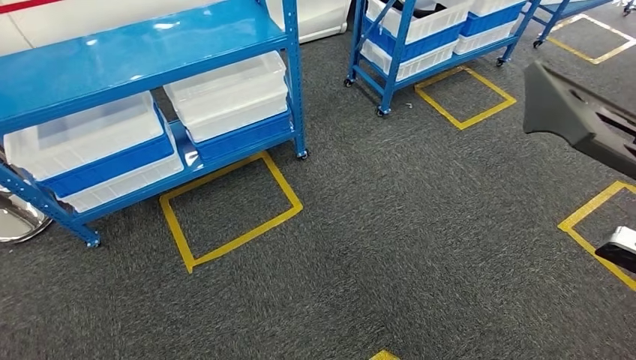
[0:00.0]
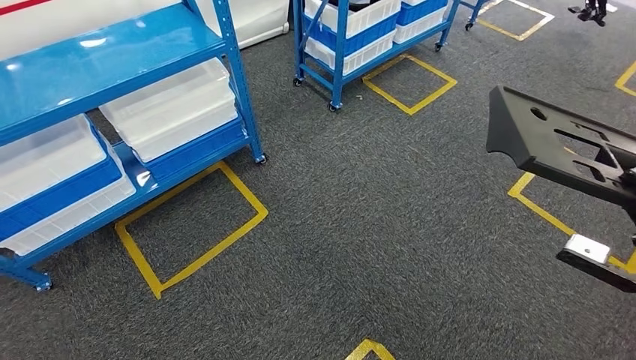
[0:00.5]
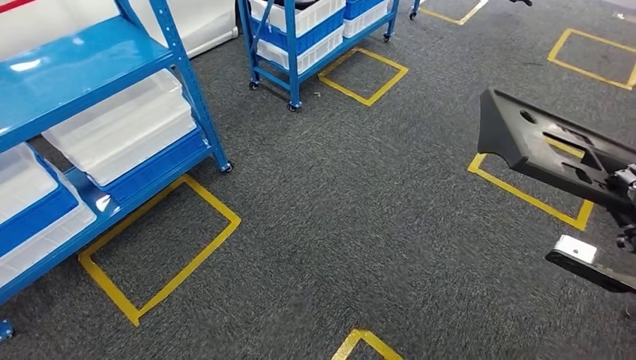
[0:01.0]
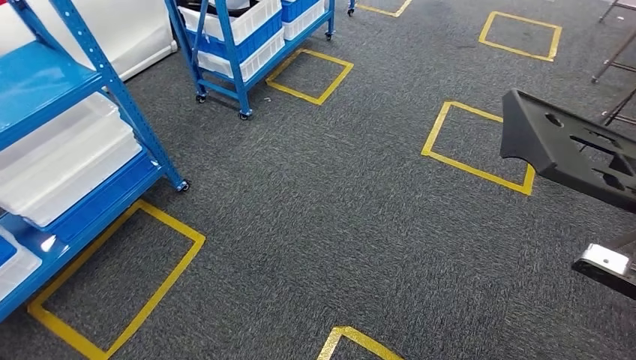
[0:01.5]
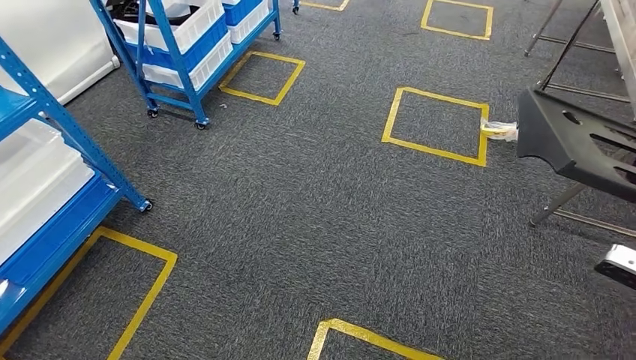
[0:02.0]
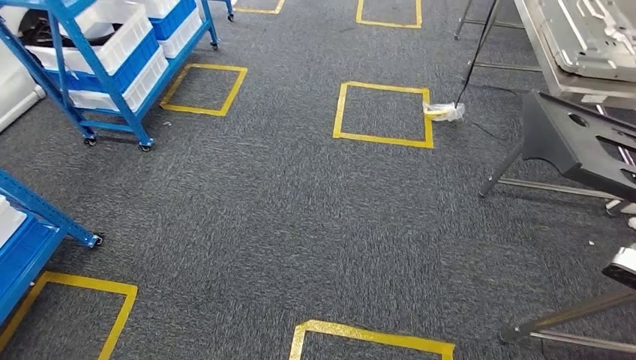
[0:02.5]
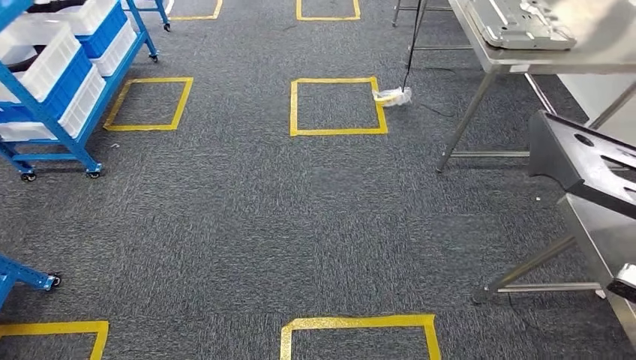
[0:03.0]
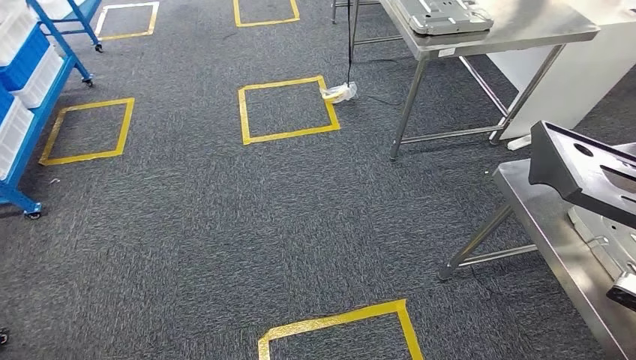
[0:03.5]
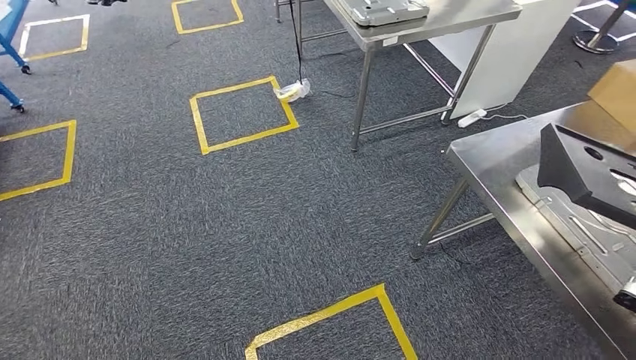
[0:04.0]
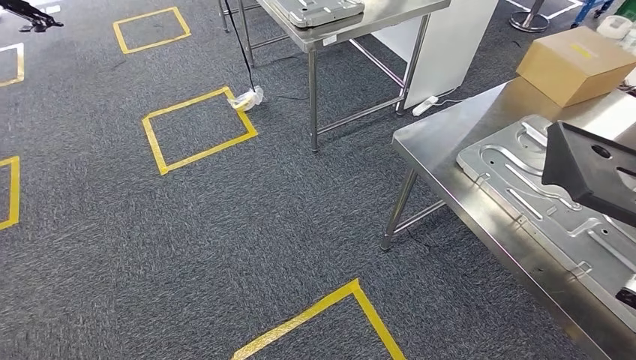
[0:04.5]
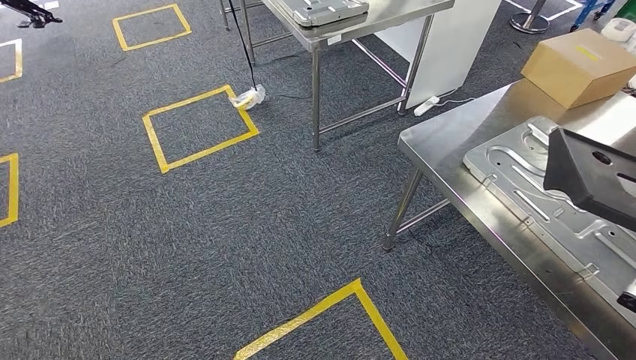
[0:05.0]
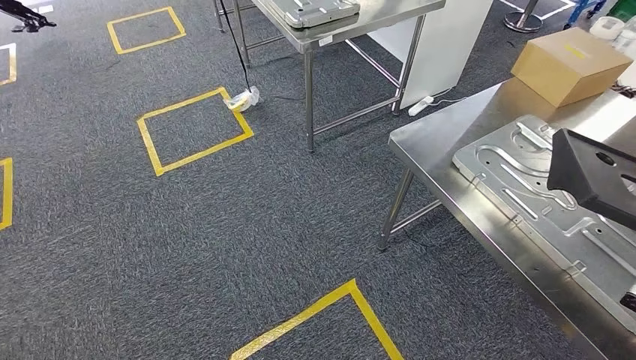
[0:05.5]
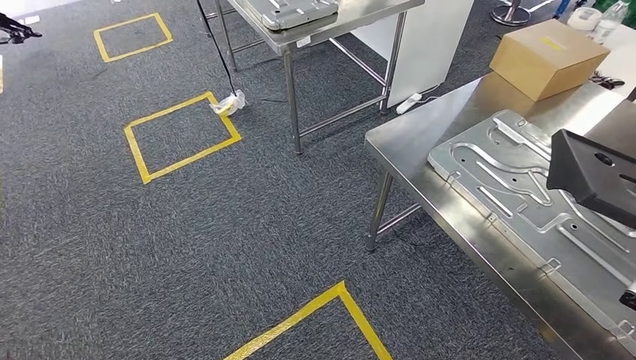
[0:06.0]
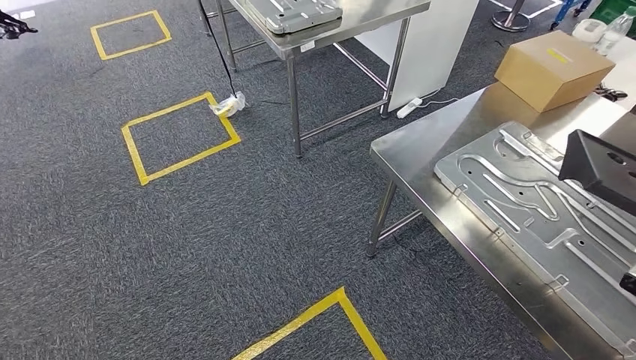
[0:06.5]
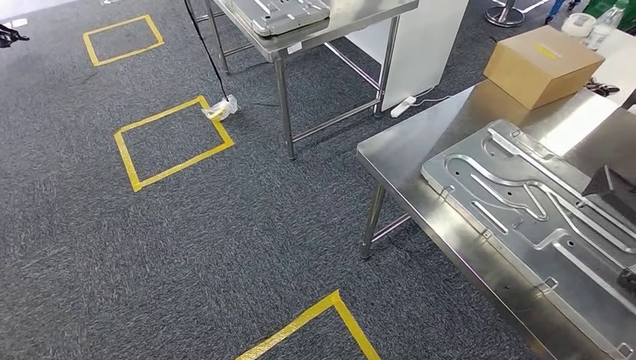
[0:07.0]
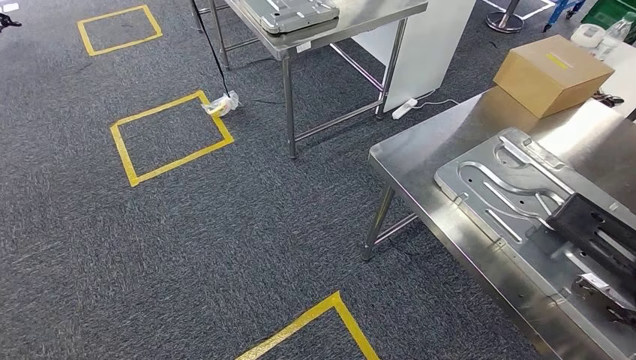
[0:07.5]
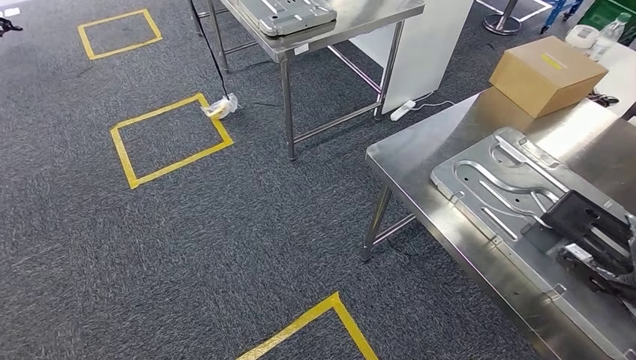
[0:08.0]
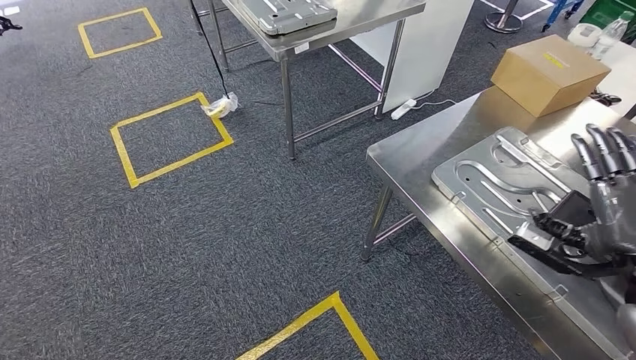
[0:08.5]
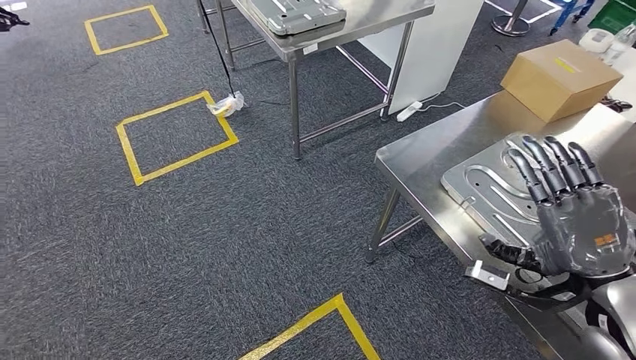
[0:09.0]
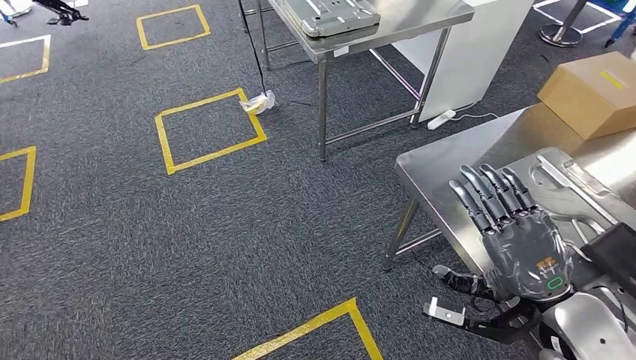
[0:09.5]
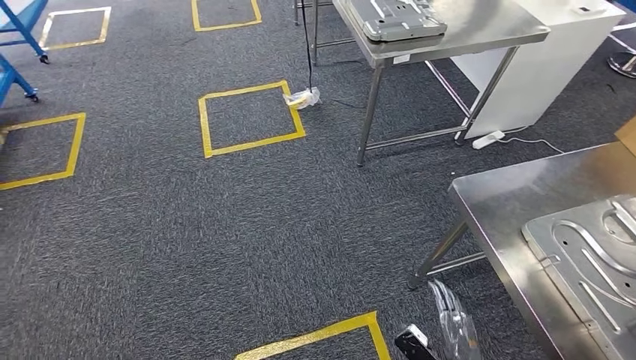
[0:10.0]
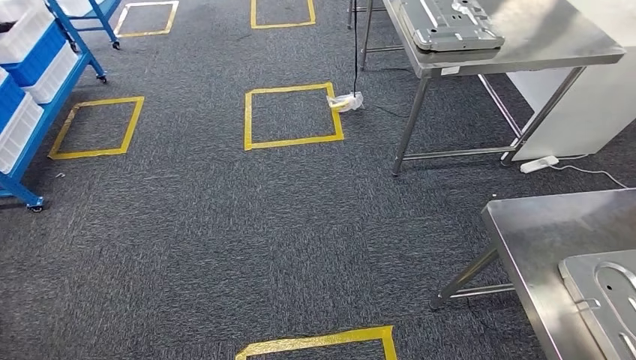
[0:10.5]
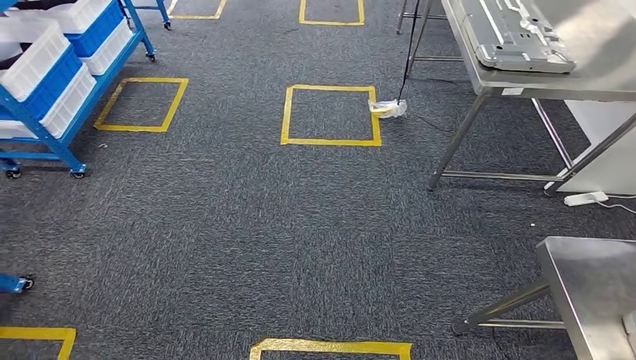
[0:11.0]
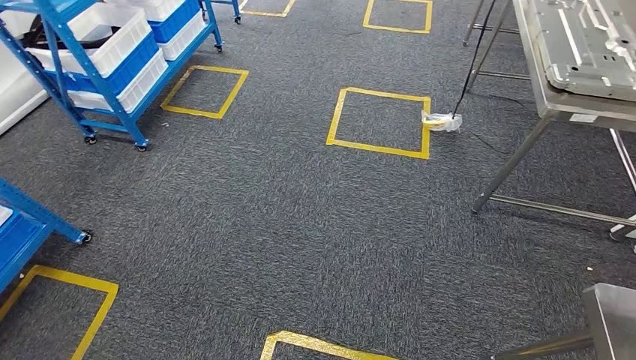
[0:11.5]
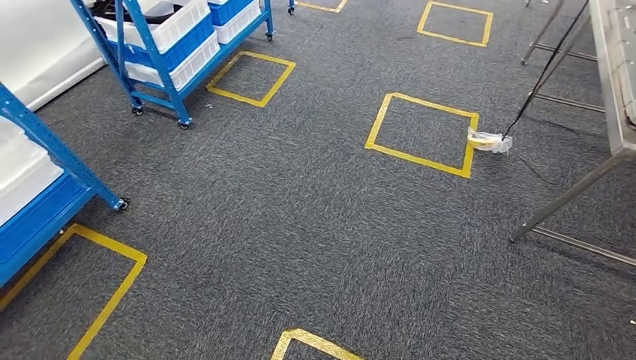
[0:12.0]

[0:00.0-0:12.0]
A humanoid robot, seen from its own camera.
Step, 0:00.0 to 0:03.5: Move the large material to the workbench.
Step, 0:05.0 to 0:09.0: Insert the large material into the corresponding slot on the workbench.
